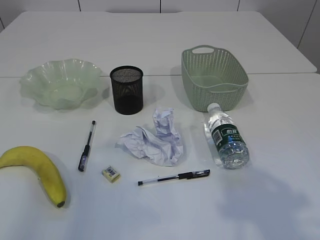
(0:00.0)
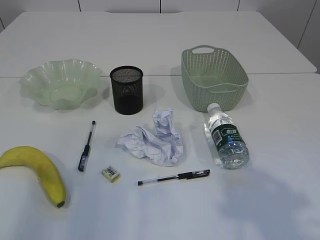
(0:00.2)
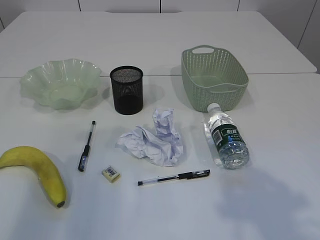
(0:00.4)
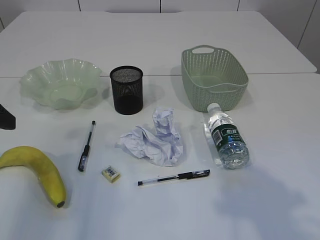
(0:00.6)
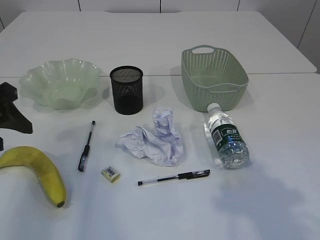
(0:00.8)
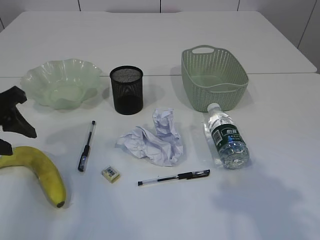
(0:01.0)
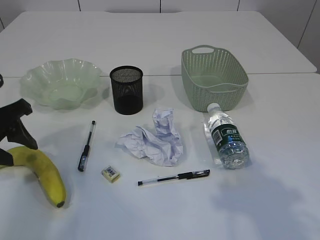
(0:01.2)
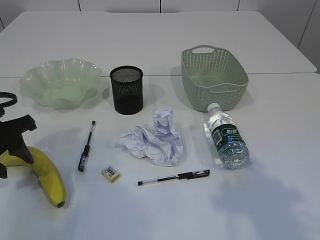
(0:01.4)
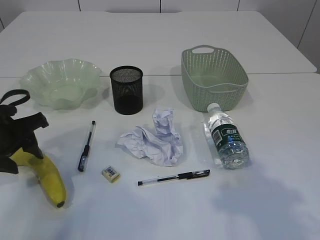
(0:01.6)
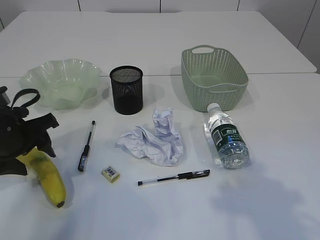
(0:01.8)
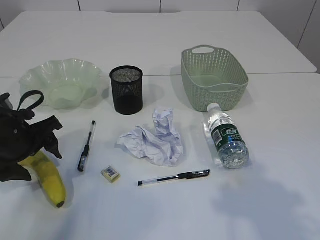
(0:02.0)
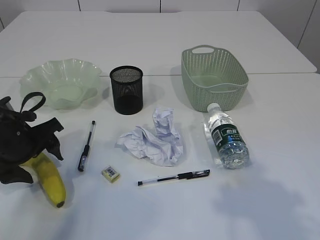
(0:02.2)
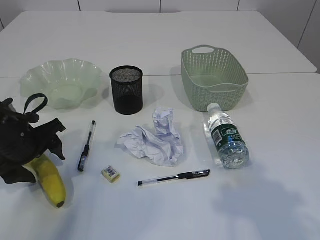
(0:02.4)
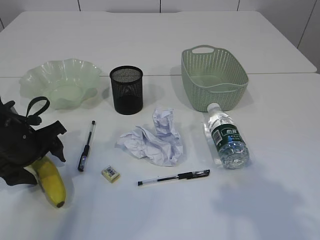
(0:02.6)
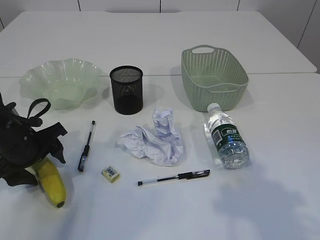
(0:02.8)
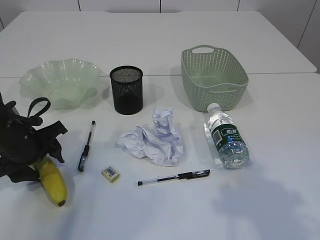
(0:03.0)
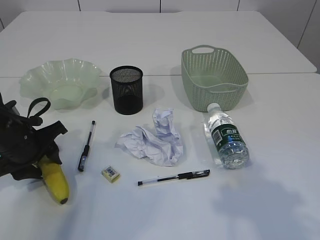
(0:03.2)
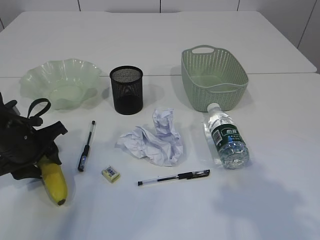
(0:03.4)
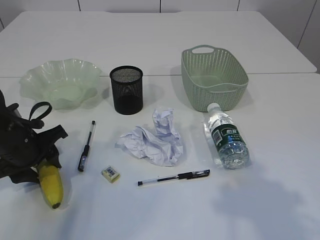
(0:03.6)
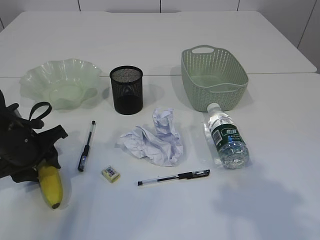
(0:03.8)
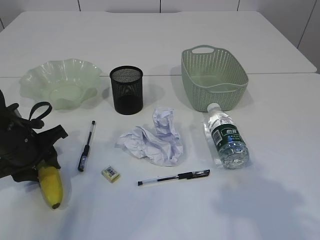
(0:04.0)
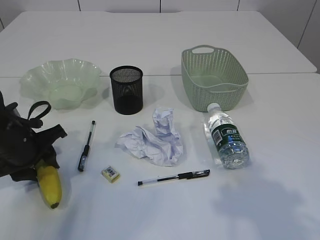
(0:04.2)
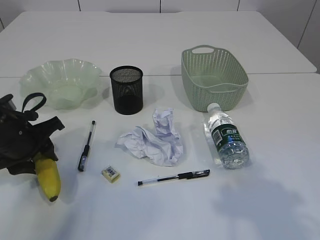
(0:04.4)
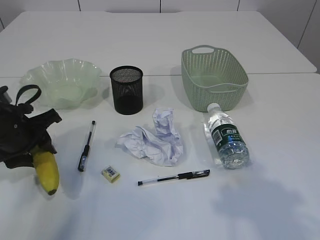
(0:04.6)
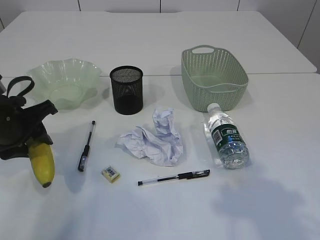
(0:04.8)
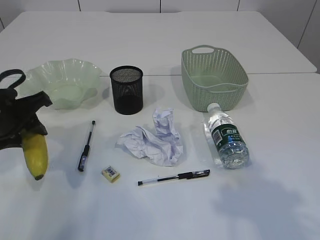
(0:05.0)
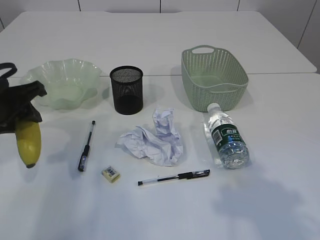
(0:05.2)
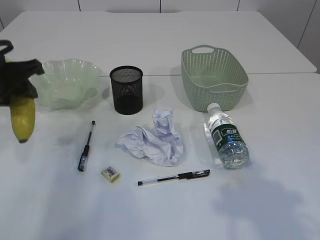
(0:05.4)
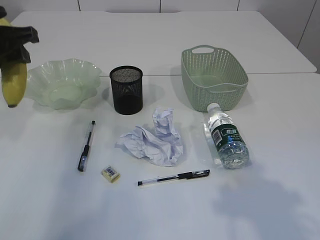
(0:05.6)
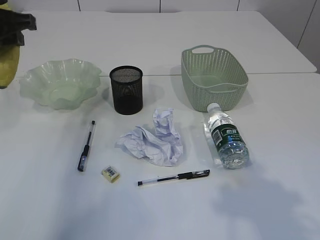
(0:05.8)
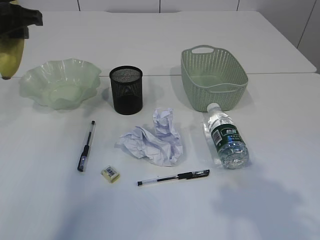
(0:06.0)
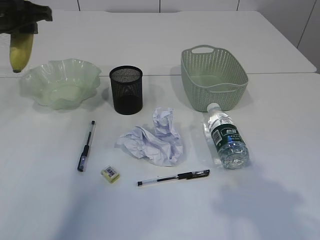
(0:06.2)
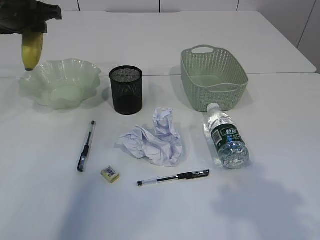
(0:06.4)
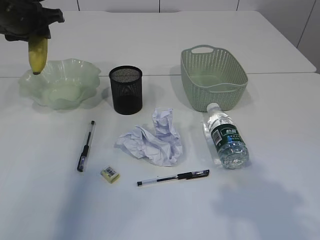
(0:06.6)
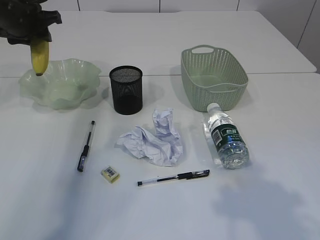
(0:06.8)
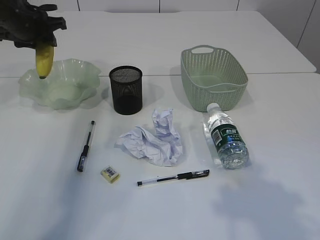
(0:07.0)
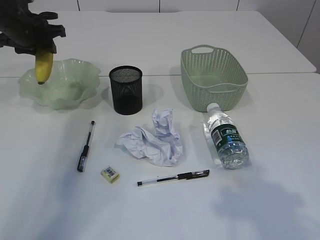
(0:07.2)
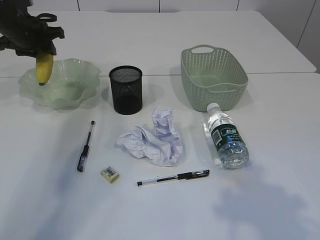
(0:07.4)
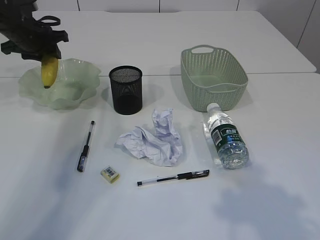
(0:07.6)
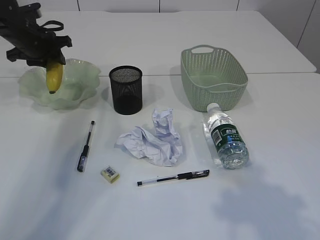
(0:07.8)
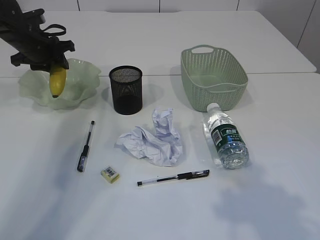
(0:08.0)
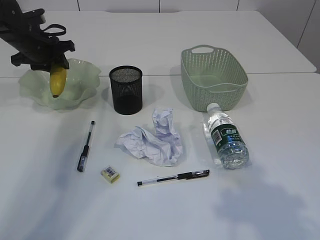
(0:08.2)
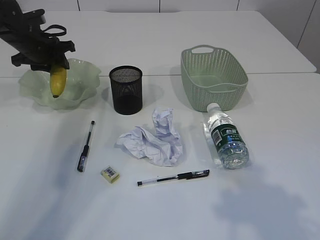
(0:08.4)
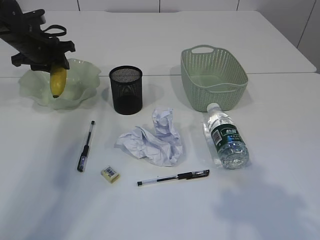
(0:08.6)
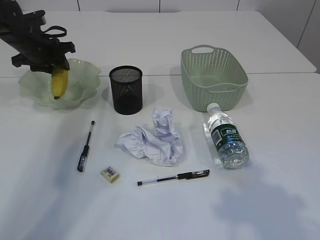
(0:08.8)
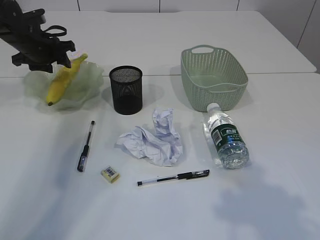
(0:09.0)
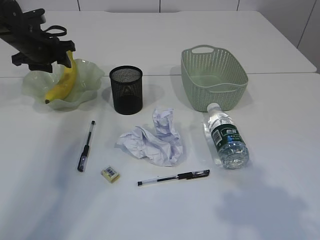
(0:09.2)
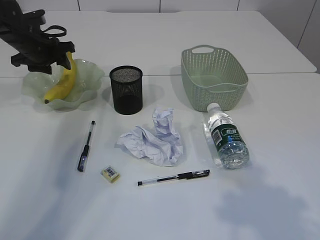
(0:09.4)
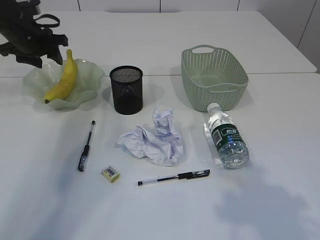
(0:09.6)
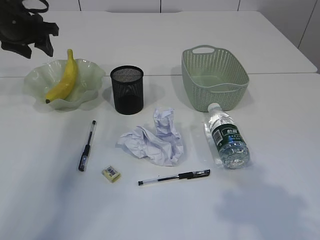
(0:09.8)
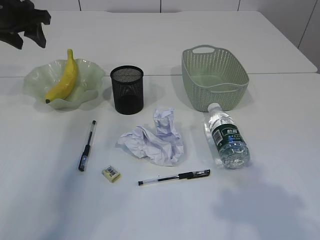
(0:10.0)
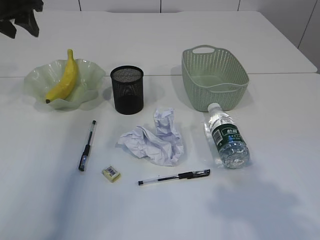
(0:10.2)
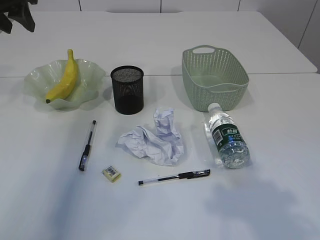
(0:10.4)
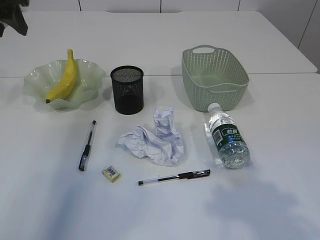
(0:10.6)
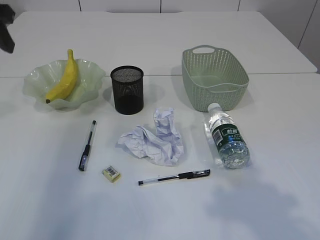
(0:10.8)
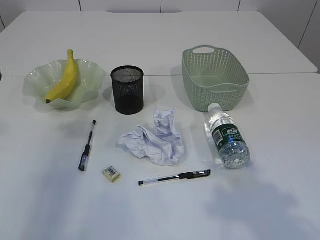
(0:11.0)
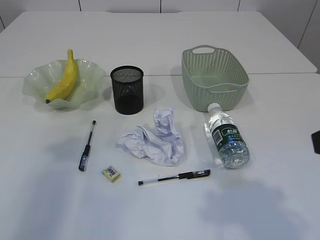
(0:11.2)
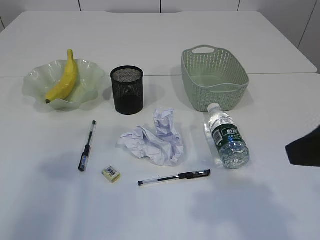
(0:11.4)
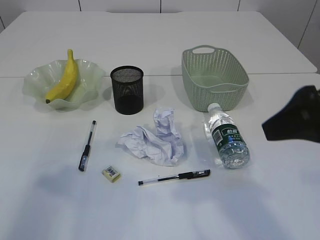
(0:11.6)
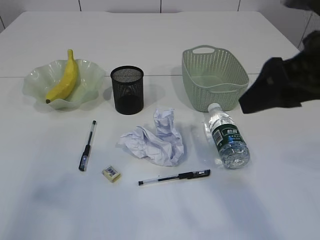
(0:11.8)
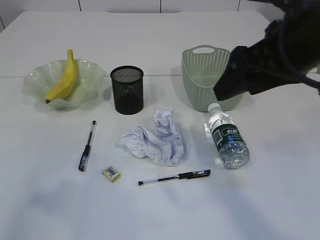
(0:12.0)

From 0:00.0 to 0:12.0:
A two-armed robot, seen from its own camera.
Step, from 0:05.2 to 0:09.8: Place the banana in the plate.
From 0:00.0 to 0:01.6: The left gripper goes some 20 cm downward and forward.
From 0:01.6 to 0:03.0: The left gripper changes place by some 5 cm.
From 0:03.0 to 0:04.4: There are only small adjustments of the grippers.
From 0:04.4 to 0:06.0: The left gripper travels upward and forward by approximately 20 cm.
From 0:06.0 to 0:07.6: The left gripper goes about 15 cm forward and downward.
From 0:07.6 to 0:09.0: The grippers make only small movements.
From 0:09.0 to 0:10.4: The left gripper shifts some 15 cm upward and backward.
From 0:10.4 to 0:12.0: The left gripper travels backward by about 30 cm. The right gripper heads forward and to the left, covering about 15 cm.

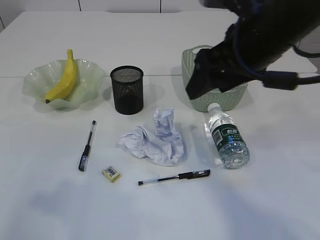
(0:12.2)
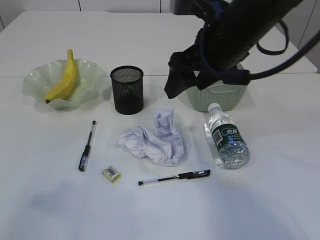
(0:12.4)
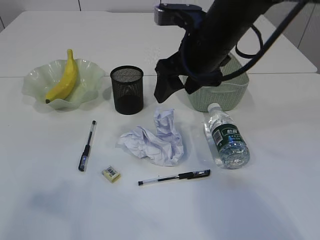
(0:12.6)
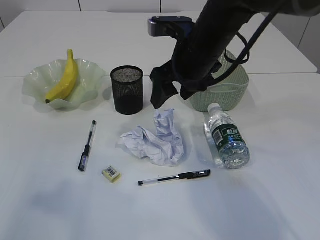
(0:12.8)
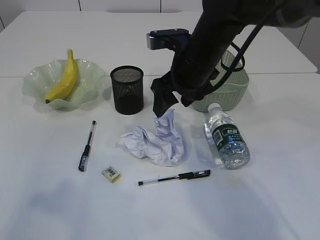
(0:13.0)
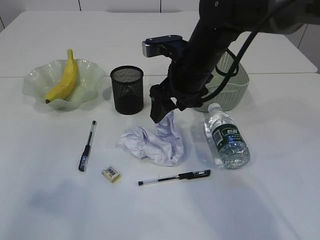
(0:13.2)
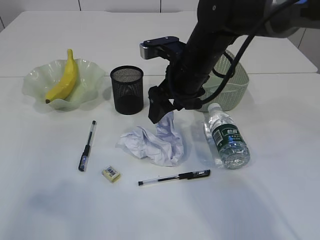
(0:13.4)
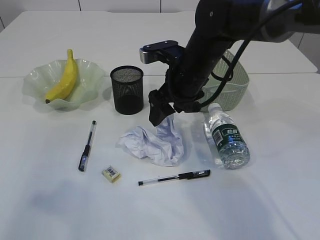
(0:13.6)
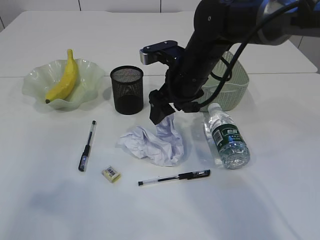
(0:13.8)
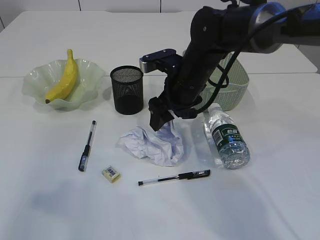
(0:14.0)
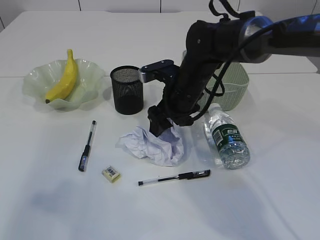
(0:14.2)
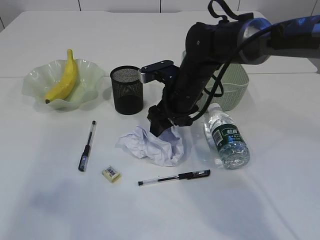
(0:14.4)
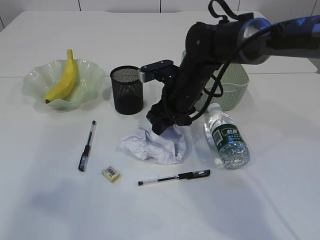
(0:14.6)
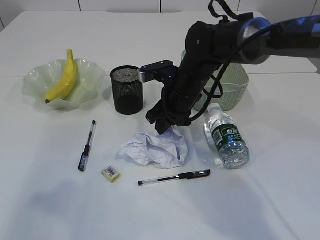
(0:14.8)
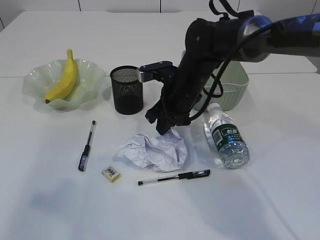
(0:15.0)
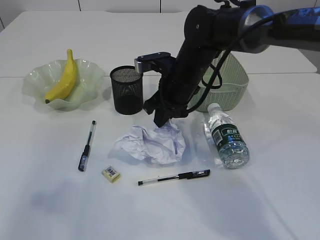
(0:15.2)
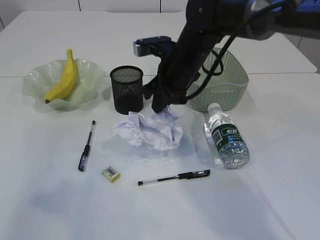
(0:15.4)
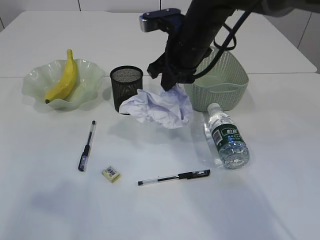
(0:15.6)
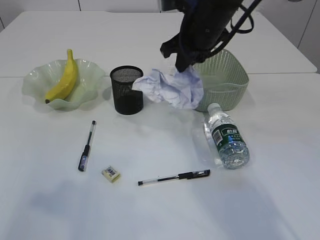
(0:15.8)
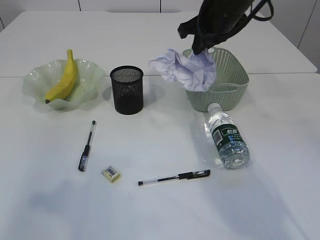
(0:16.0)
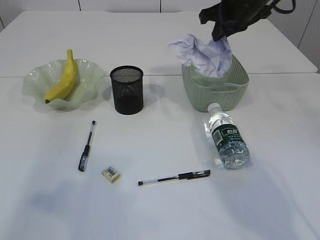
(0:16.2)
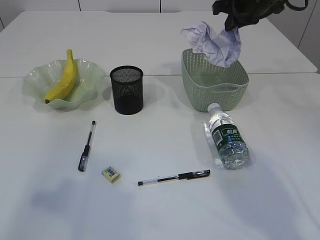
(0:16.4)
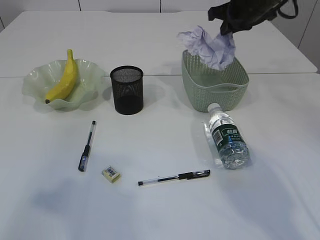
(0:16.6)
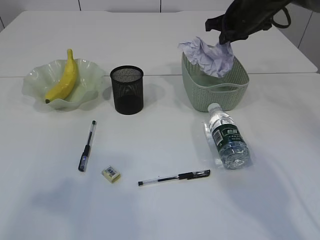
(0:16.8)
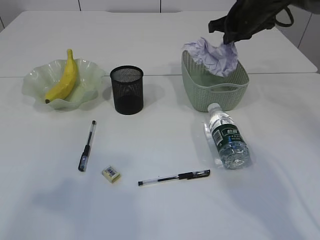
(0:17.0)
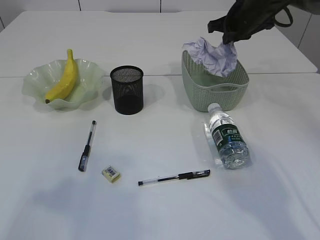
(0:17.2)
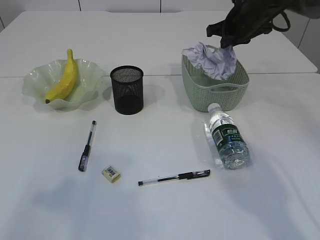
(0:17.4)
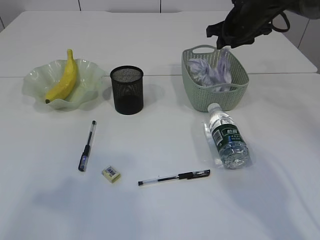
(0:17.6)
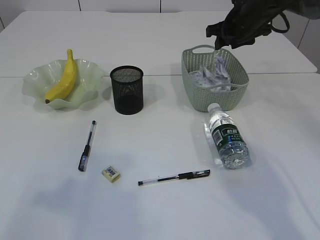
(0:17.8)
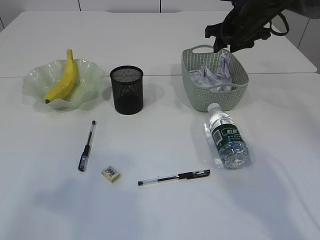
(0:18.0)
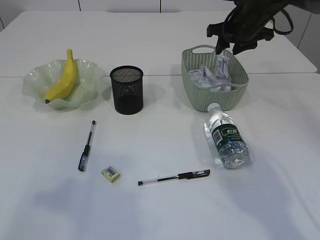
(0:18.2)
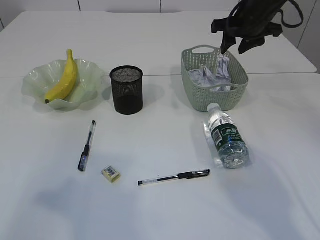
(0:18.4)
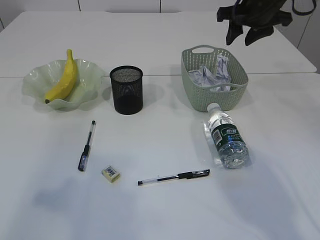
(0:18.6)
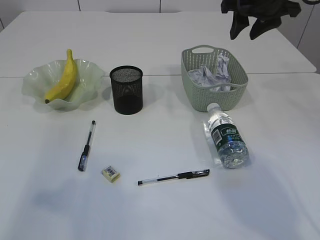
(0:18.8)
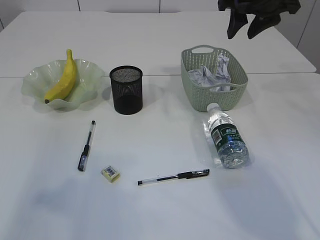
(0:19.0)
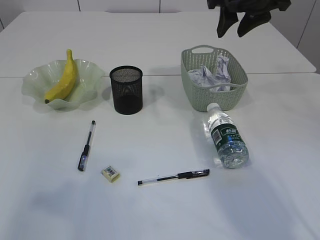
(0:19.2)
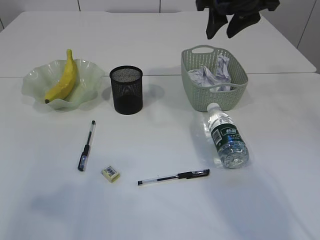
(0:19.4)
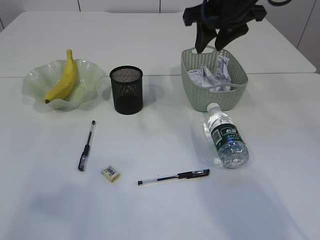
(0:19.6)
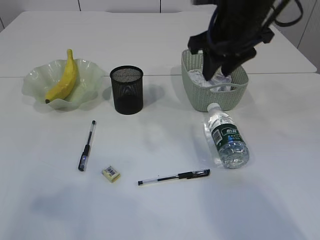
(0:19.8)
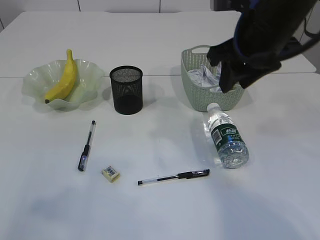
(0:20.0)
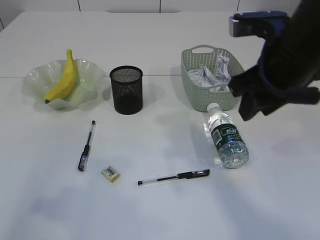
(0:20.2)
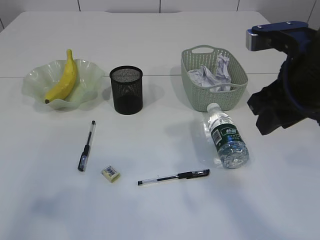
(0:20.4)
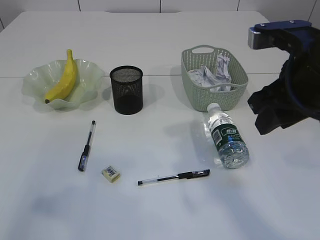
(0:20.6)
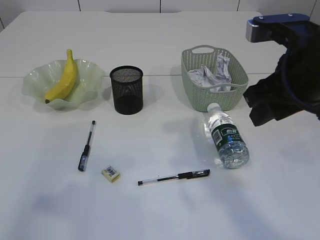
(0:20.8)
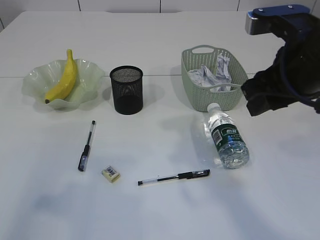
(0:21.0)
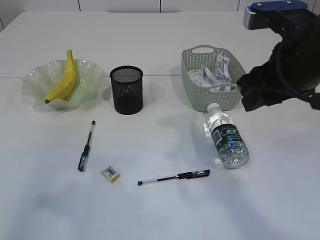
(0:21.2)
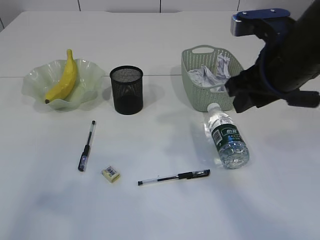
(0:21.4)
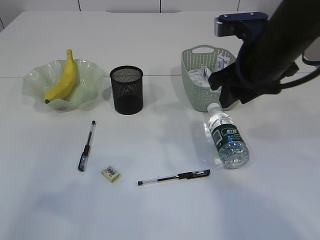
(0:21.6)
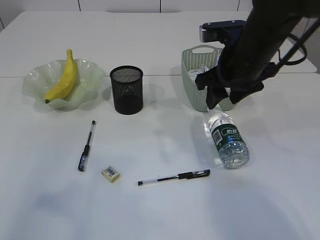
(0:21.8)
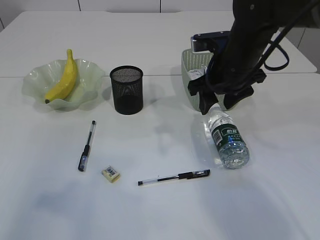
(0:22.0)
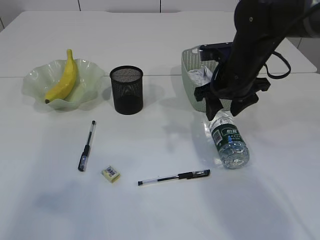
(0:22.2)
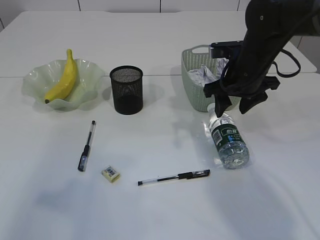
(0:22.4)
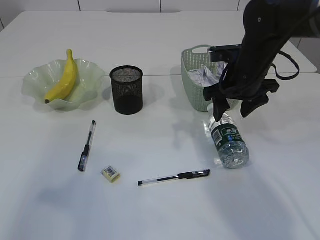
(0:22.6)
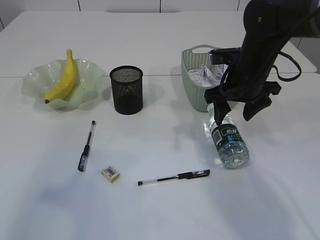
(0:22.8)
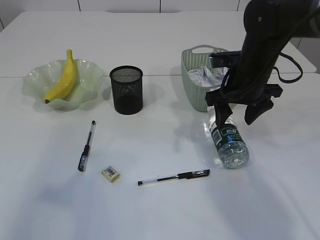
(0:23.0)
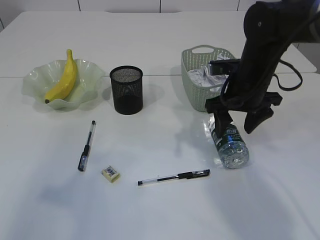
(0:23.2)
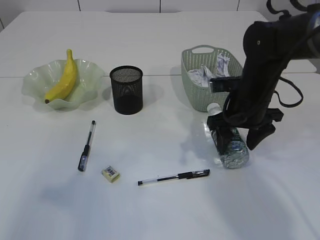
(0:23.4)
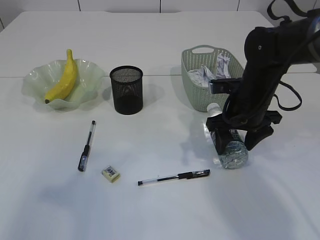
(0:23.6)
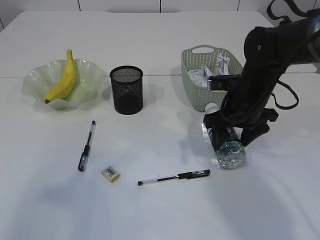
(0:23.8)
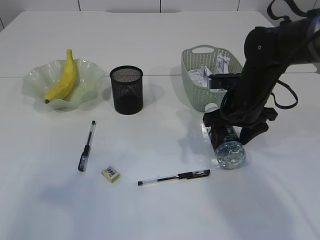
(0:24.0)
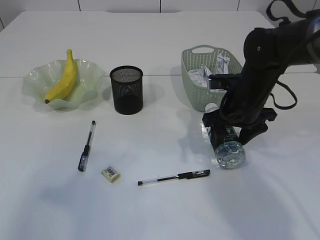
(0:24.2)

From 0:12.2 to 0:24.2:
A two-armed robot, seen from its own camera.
Step, from 0:12.2 to 0:15.4: Pick up the waste paper.
Step, from 0:15.6 to 0:18.4: Place the waste paper in the basket.
From 0:12.2 to 0:13.8: The right gripper goes approximately 15 cm downward, forward and to the left.
From 0:13.8 to 0:15.2: The right gripper closes its fingers.
From 0:15.2 to 0:16.6: The right gripper travels to the right, upward and forward by about 20 cm.
From 0:16.6 to 0:18.2: The right gripper opens up.
From 0:18.2 to 0:19.8: The right gripper shifts some 15 cm backward, to the left and upward.
From 0:19.8 to 0:21.2: The right gripper moves backward, roughly 10 cm.
From 0:21.2 to 0:22.6: The right gripper is displaced forward and downward by roughly 15 cm, and opens.
From 0:22.6 to 0:24.2: There are only small adjustments of the grippers.
